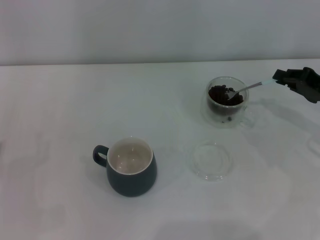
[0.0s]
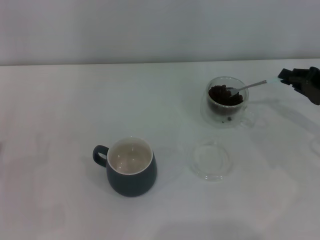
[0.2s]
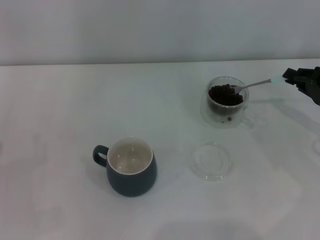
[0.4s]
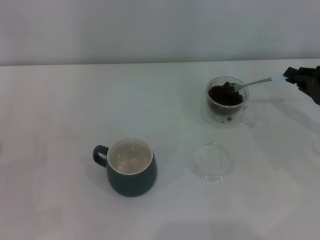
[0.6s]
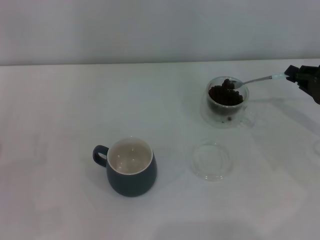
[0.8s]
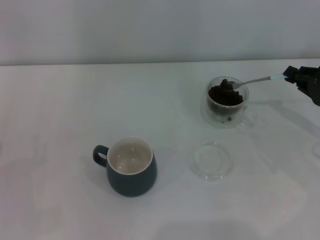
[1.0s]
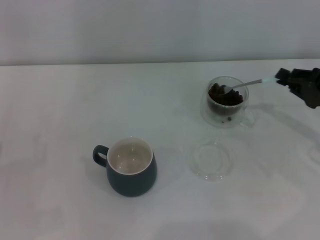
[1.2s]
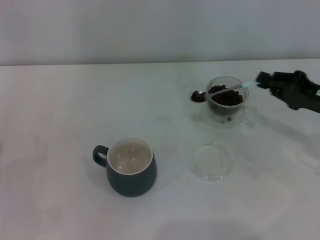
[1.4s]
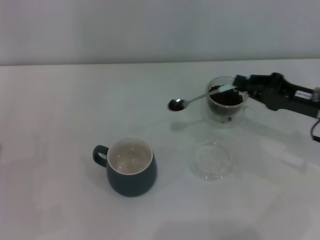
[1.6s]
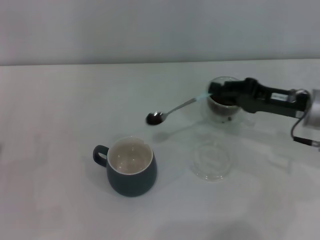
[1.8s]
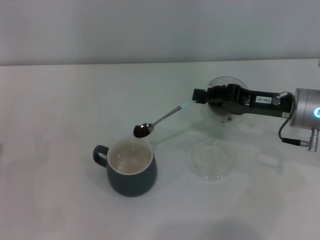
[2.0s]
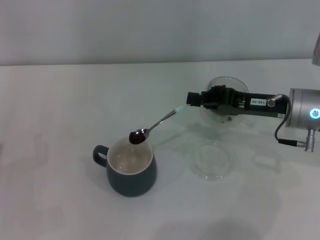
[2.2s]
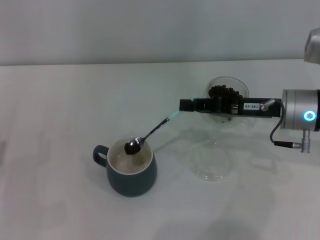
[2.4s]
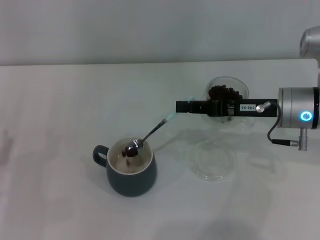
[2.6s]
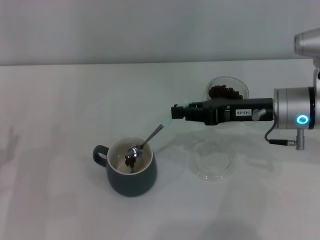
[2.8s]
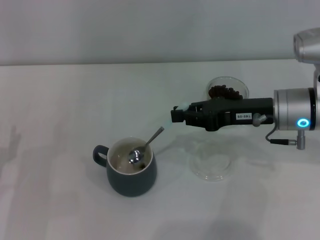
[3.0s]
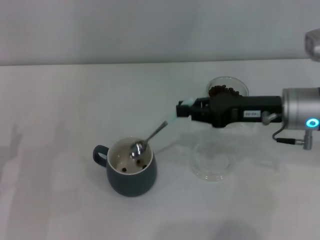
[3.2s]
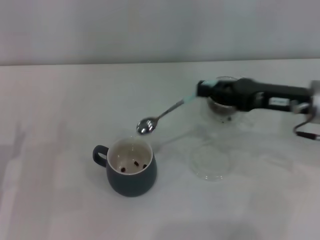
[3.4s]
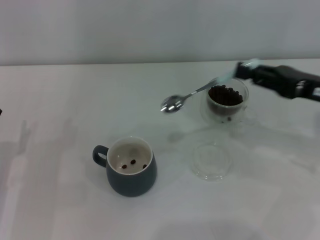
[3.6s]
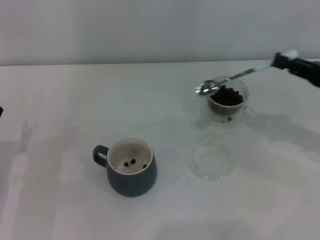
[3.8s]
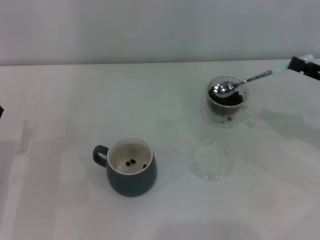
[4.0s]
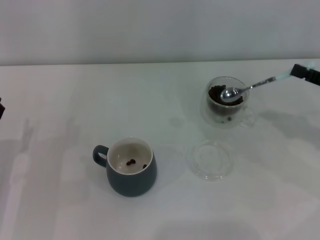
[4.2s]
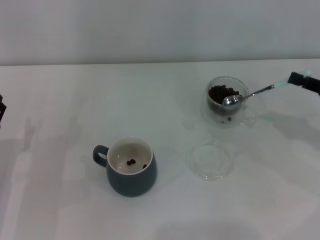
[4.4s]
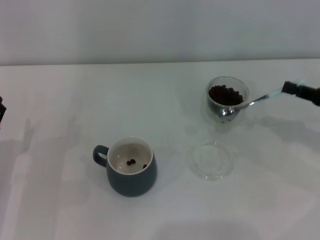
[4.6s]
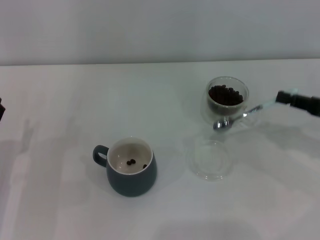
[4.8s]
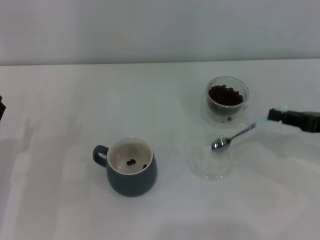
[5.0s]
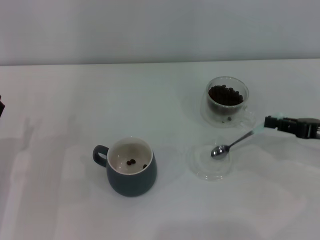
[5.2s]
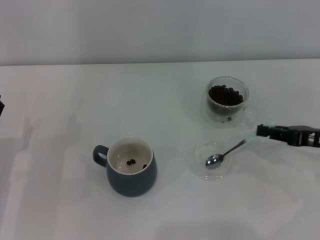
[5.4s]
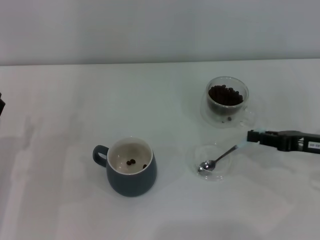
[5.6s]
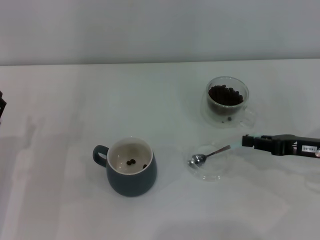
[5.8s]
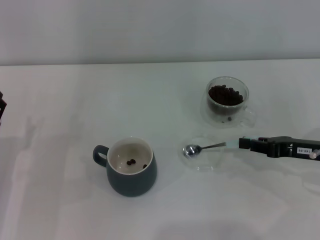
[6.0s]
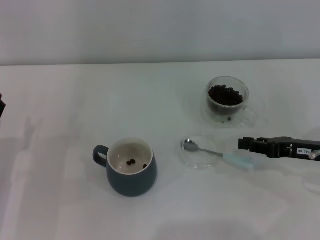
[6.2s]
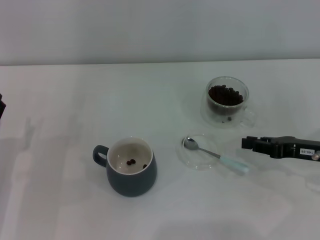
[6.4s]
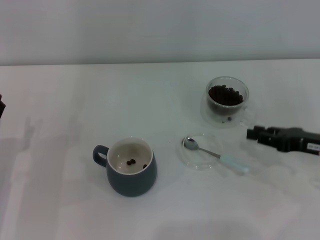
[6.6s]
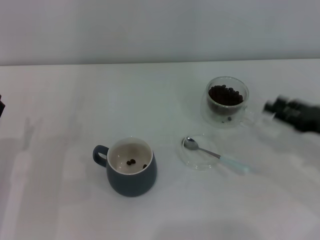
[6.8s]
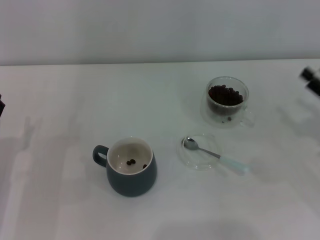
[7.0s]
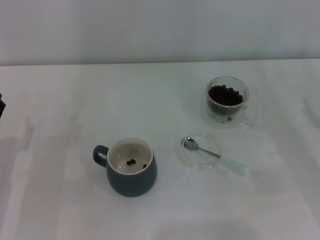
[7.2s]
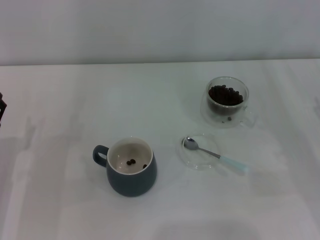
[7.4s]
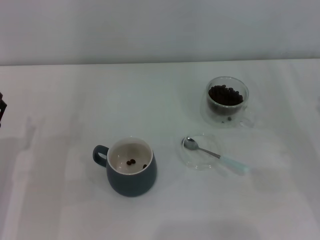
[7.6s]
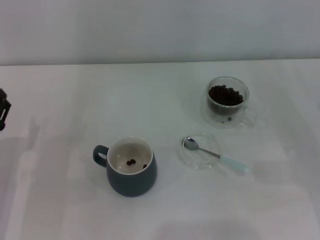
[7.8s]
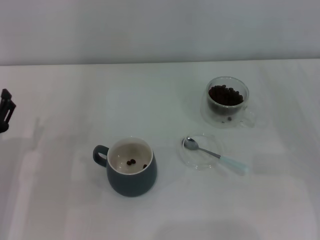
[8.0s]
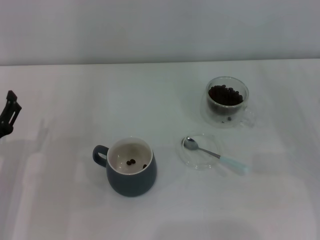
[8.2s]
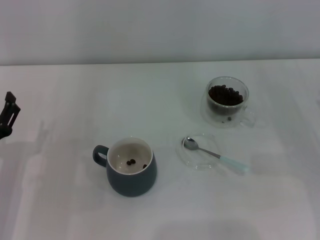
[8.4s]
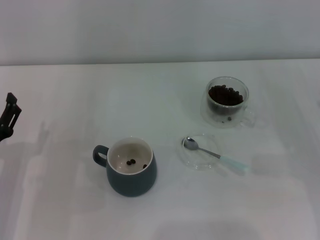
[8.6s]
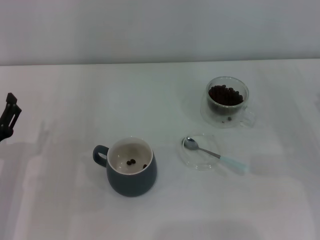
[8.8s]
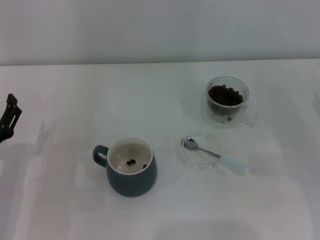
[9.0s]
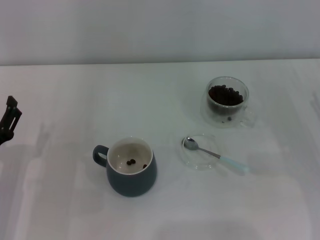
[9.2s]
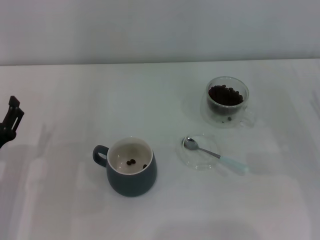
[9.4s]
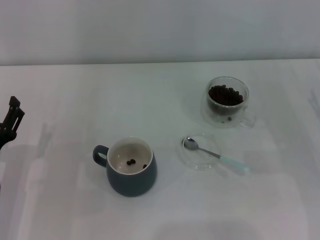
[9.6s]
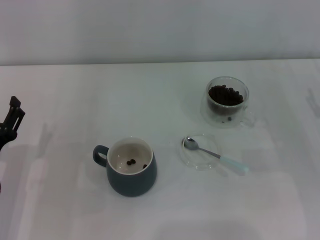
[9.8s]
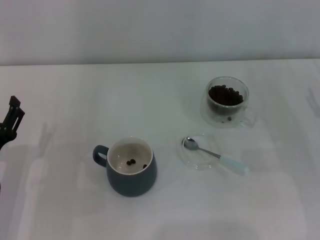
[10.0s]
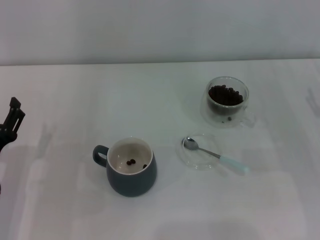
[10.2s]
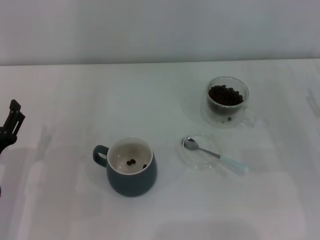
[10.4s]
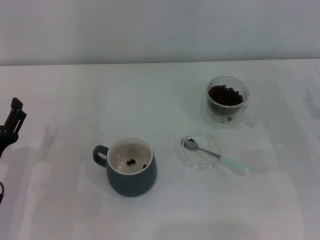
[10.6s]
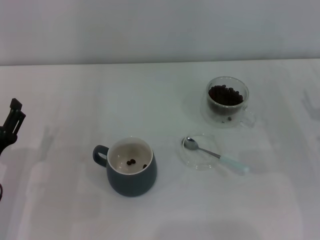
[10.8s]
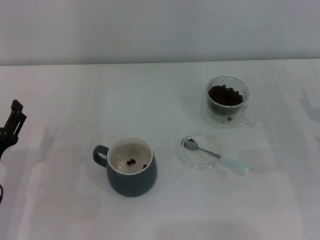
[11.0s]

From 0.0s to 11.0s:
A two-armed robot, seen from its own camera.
Task of the whole recording: Use a blue spoon to take out the coffee beans from the glass and pour them into the gray cup.
Step, from 0.0s to 3.0s: Scoop a spoonful of beans into the cup with the right gripper.
Step, from 3.2s to 6.0s: Place the spoon back in its original place with the right gripper.
From 0.0s to 1.6s: The right gripper is displaced to the left by about 5 cm.
From 1.6s to 3.2s: The right gripper travels to the left by approximately 5 cm.
From 3.2s to 4.8s: The right gripper is displaced to the right by roughly 15 cm.
From 4.8s to 6.2s: The right gripper moves about 5 cm.
From 6.2s to 7.8s: The right gripper goes about 5 cm to the right, and opens its fingers.
From 7.8s to 9.4s: The grippers stay close to where they were, moving slightly.
